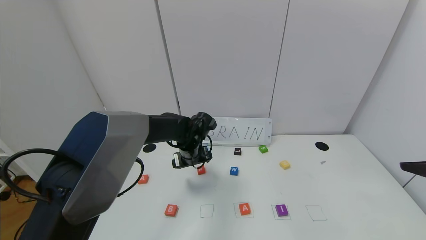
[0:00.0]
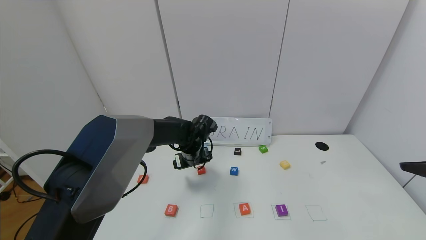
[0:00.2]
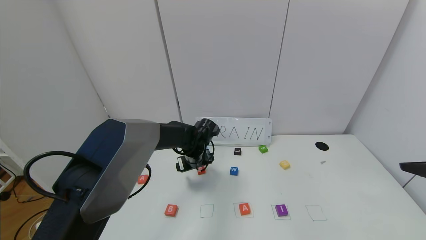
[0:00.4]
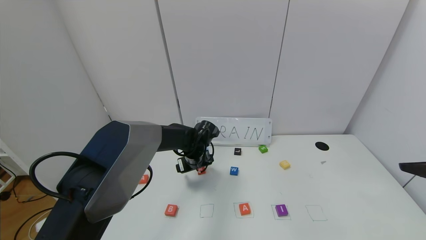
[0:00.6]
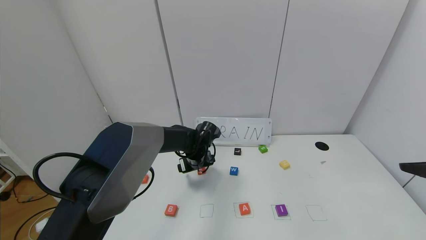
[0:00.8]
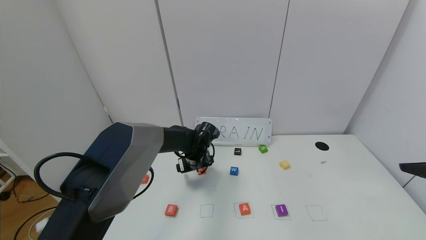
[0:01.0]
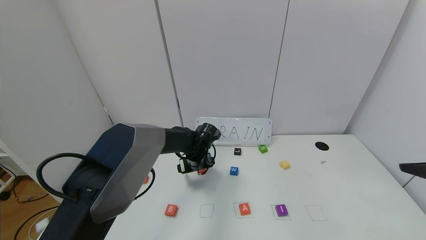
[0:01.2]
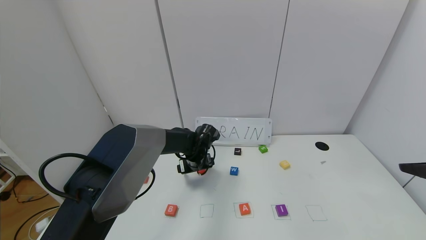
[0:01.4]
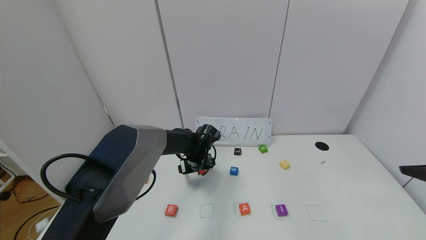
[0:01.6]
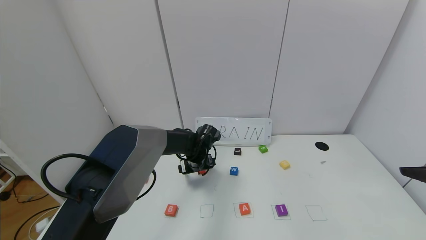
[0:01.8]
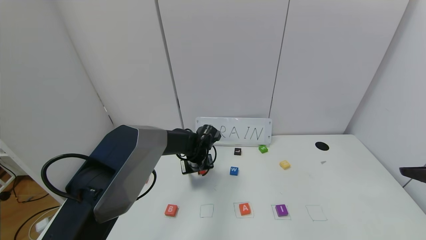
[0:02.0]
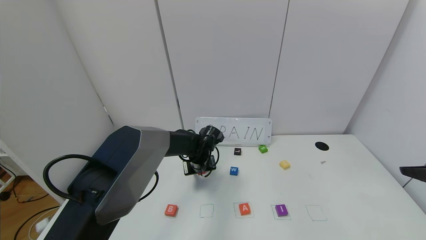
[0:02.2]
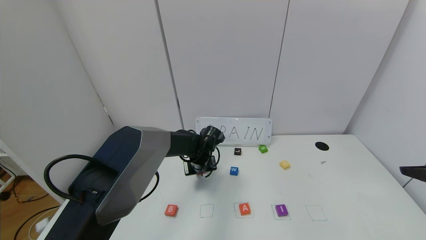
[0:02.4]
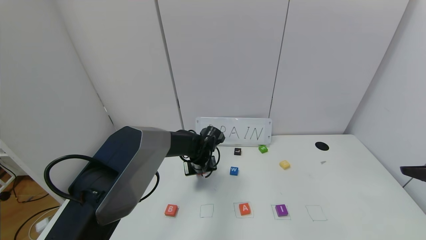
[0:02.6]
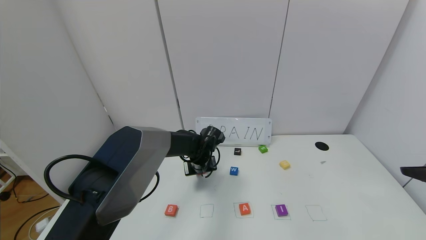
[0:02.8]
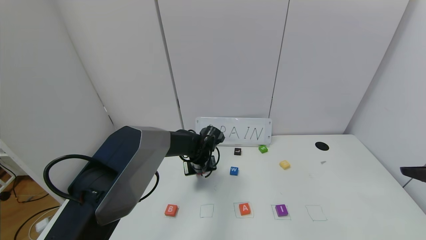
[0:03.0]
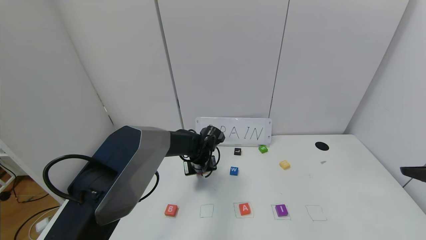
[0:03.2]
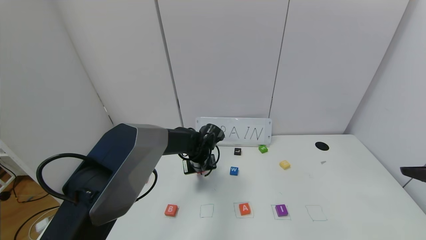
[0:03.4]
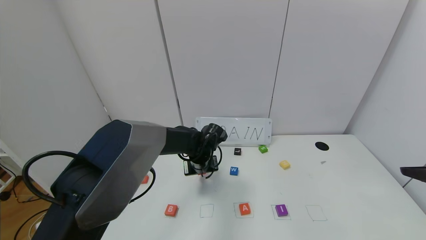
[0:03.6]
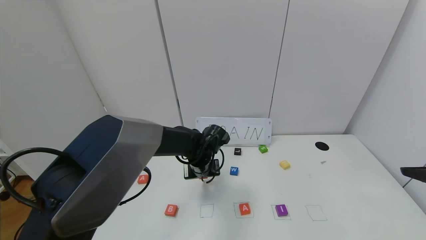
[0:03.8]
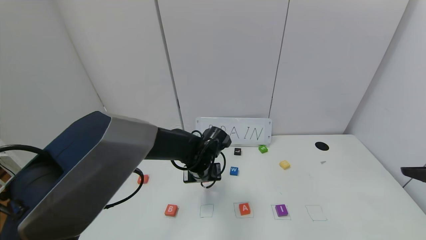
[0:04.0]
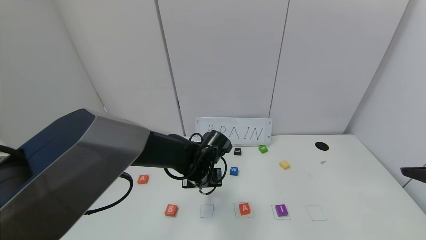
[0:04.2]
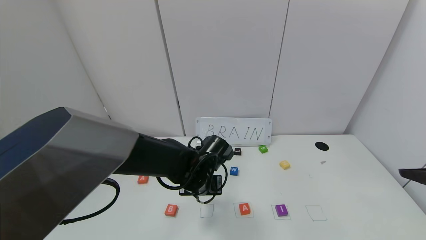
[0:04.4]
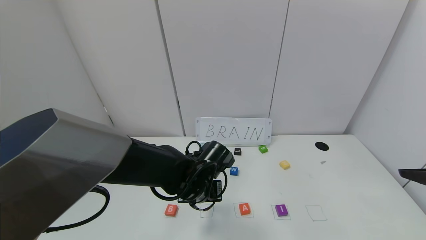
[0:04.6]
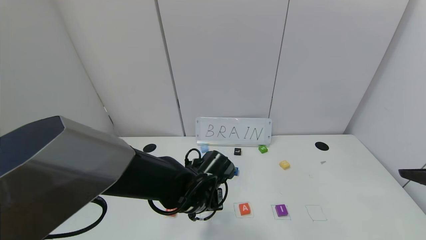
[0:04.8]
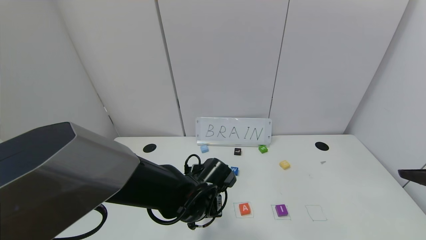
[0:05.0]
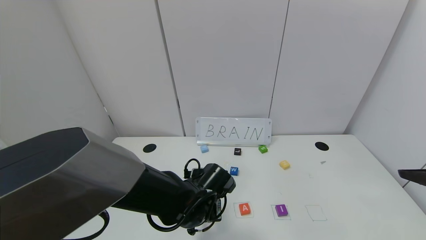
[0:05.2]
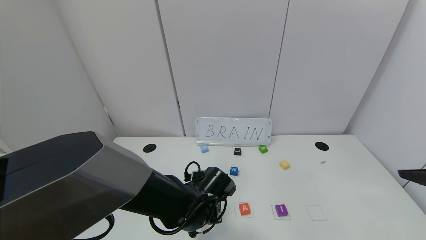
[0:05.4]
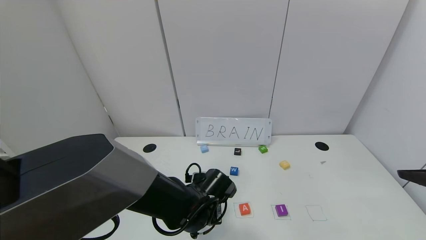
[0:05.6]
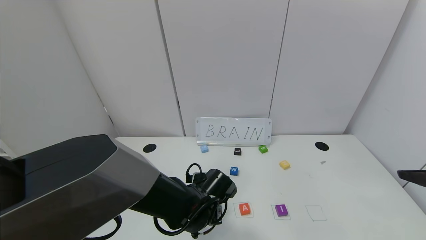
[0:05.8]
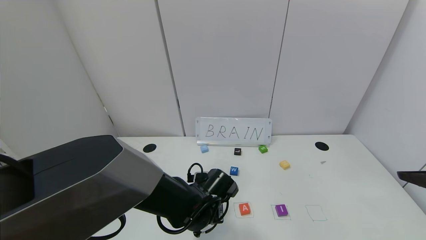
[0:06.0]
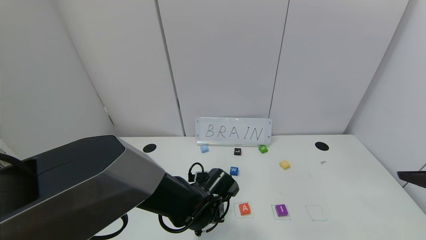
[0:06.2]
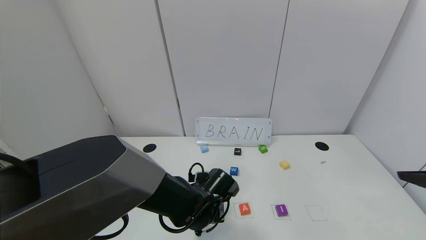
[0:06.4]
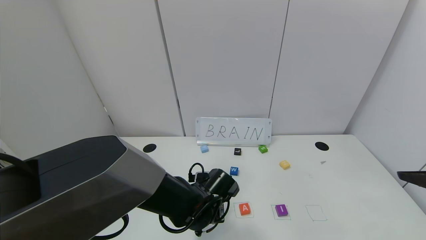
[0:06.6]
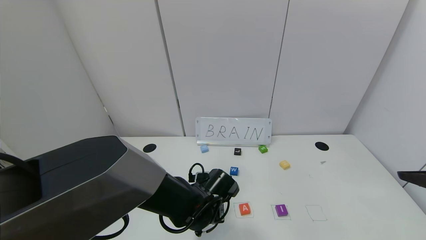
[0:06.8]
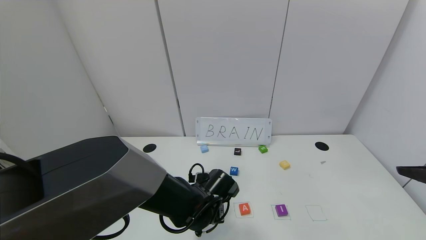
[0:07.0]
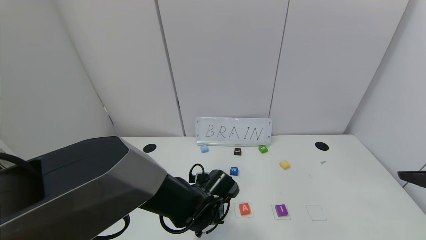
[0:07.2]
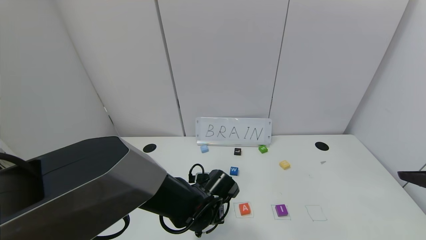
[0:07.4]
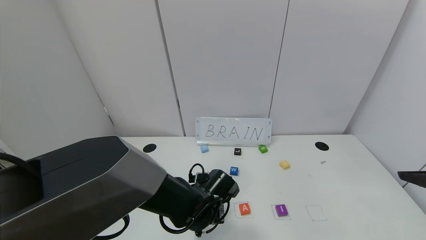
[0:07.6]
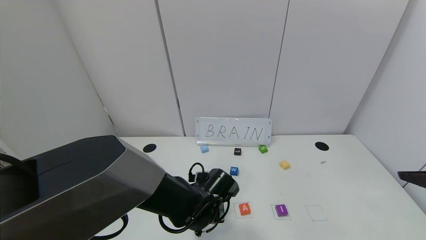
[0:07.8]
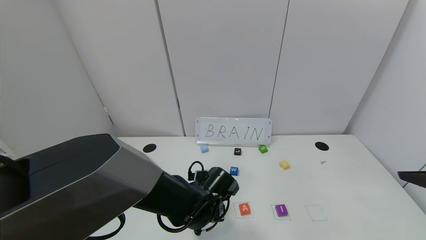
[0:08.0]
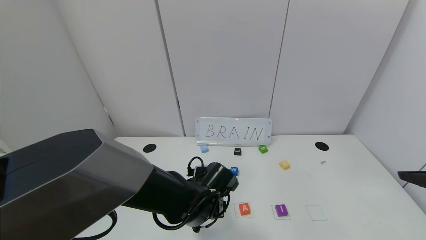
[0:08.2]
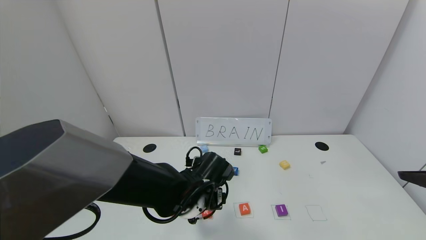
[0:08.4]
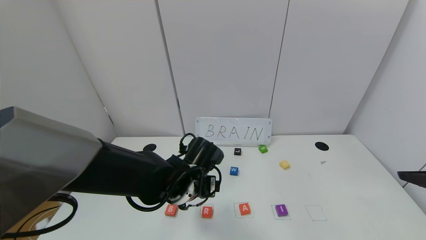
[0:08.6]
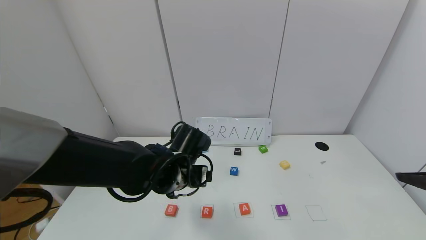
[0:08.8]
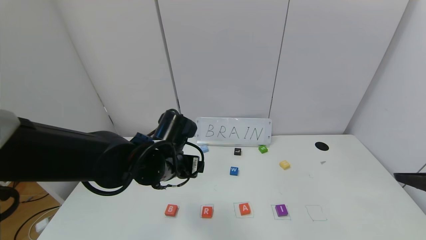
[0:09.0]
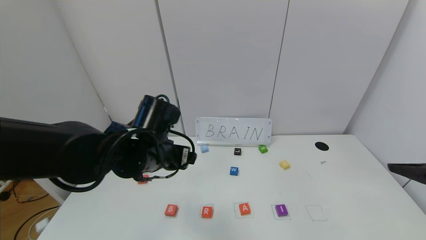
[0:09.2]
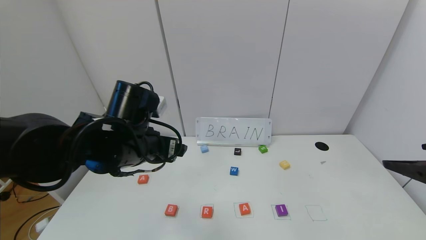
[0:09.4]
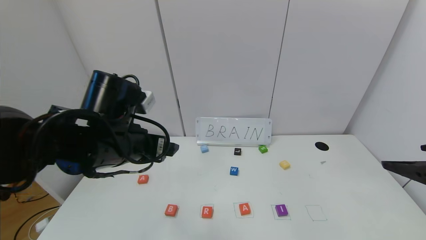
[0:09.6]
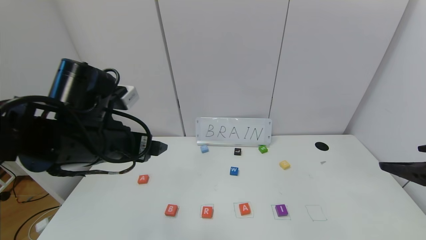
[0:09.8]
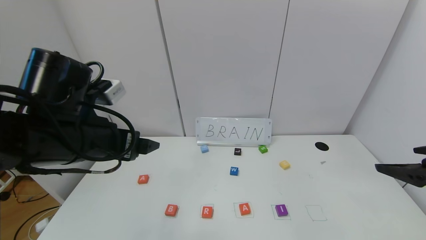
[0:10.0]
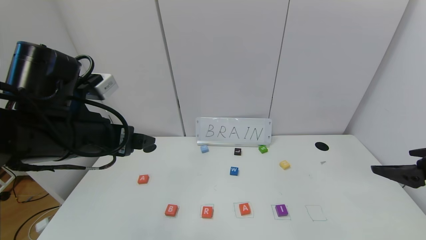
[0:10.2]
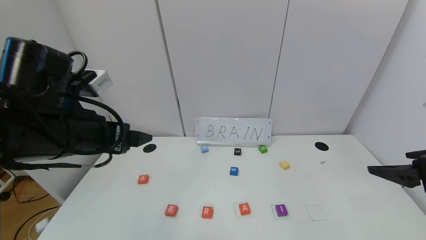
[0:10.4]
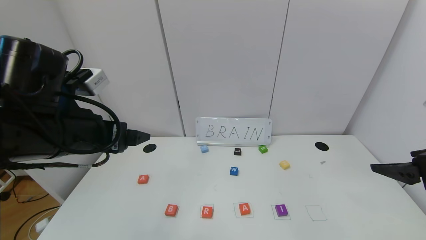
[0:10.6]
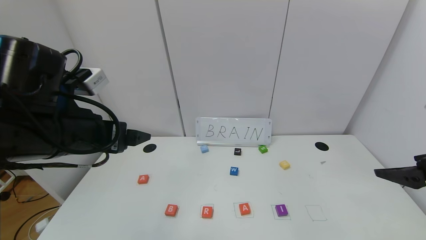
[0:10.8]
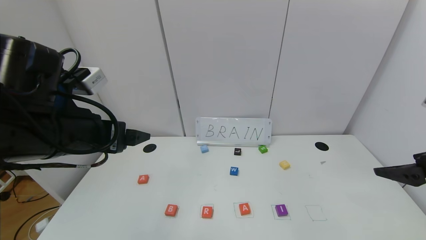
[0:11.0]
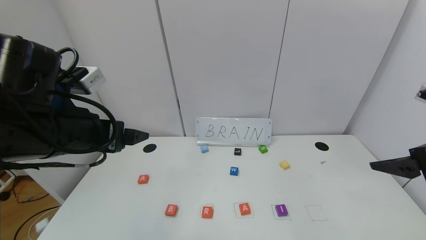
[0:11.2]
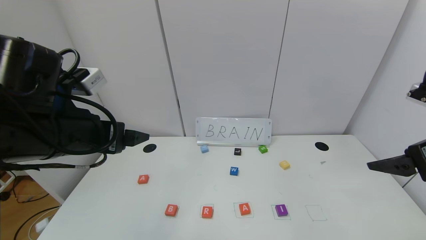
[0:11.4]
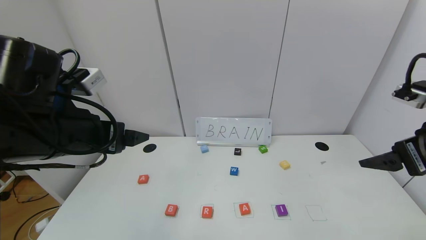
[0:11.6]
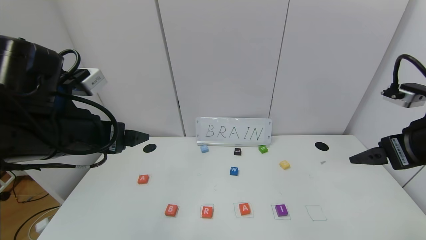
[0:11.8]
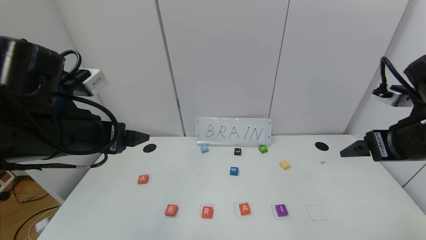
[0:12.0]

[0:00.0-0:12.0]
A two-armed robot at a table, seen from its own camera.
Task of the whole recording: use the gripper to find blocks with the letters b, a, a, and i on the table and arrange them into BAAI, then find r and N and turn the arranged baai into brian.
Step, 0:00.0 to 0:08.0: Place the block R in the second location.
0:00.0 to 0:01.6: The left gripper is displaced downward by approximately 5 cm.
0:01.6 to 0:03.0: The left gripper closes its fingers.
0:03.0 to 0:04.4: The left gripper travels backward by roughly 10 cm.
0:04.4 to 0:06.0: The left gripper shifts some 5 cm downward.
0:06.0 to 0:07.6: The left gripper opens.
0:07.6 to 0:09.0: The left gripper is displaced upward and to the left by some 15 cm, and opens its fingers.
0:09.0 to 0:10.4: The left gripper shifts approximately 15 cm upward, to the left and backward.
0:10.4 to 0:12.0: The right gripper travels forward by approximately 5 cm.

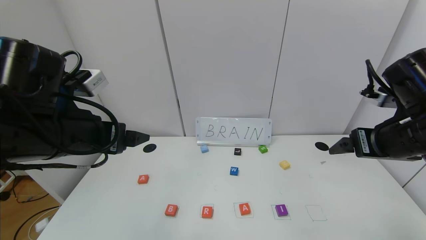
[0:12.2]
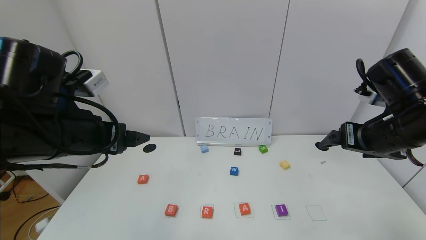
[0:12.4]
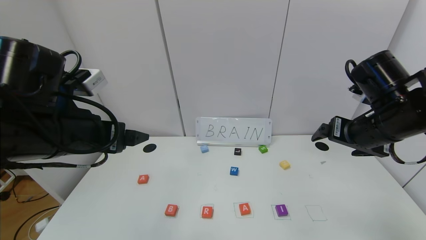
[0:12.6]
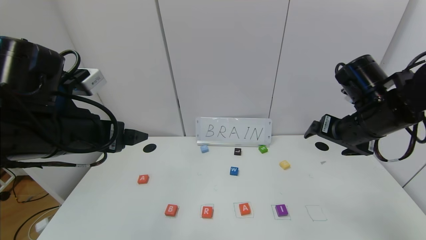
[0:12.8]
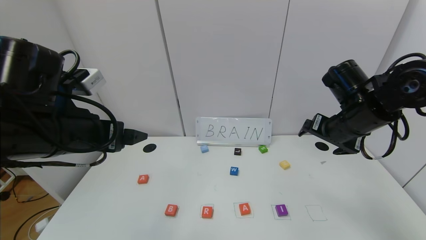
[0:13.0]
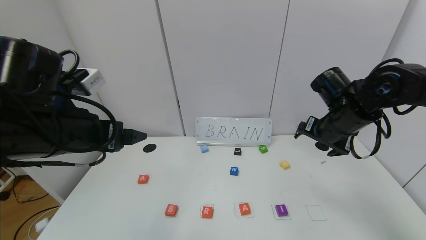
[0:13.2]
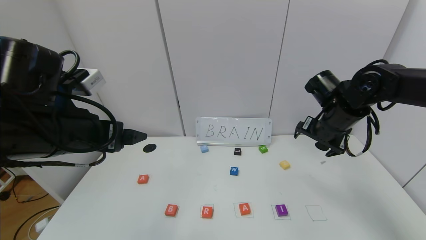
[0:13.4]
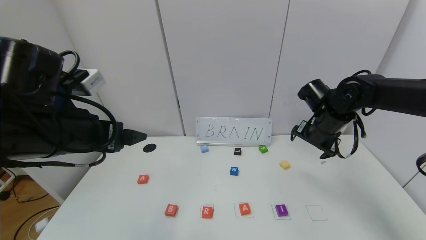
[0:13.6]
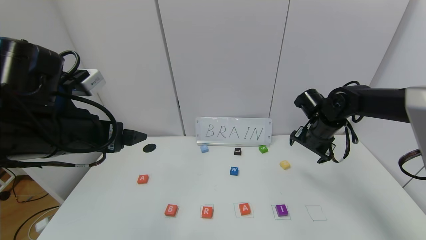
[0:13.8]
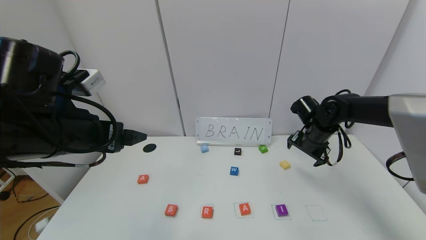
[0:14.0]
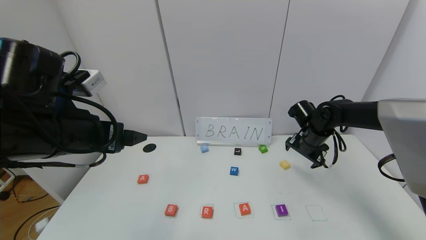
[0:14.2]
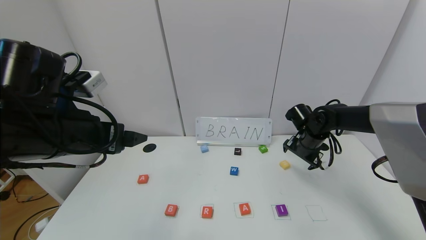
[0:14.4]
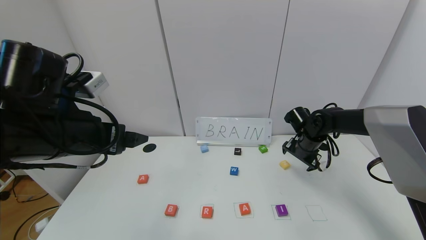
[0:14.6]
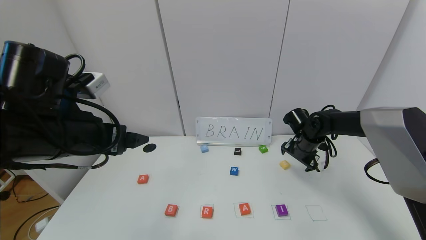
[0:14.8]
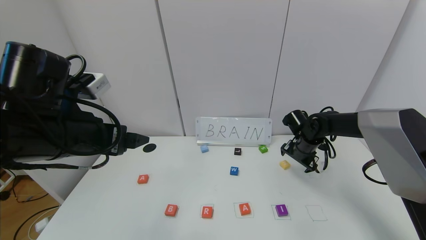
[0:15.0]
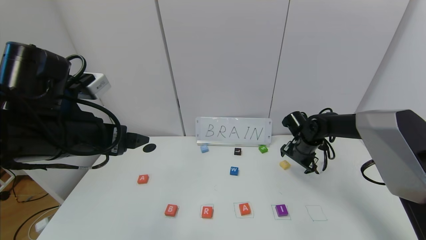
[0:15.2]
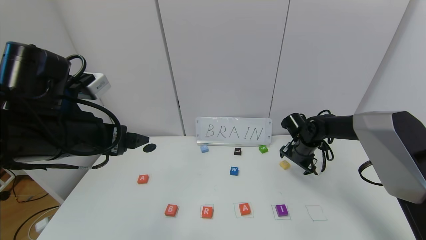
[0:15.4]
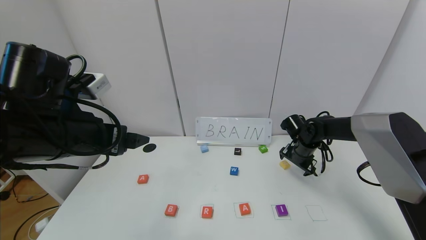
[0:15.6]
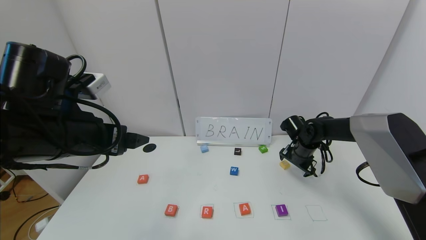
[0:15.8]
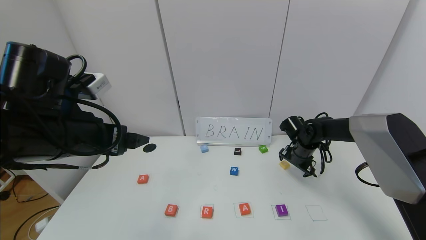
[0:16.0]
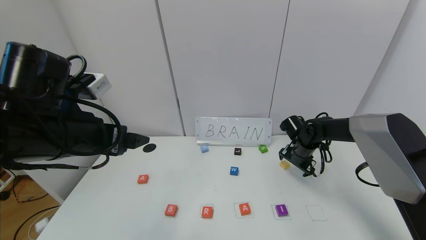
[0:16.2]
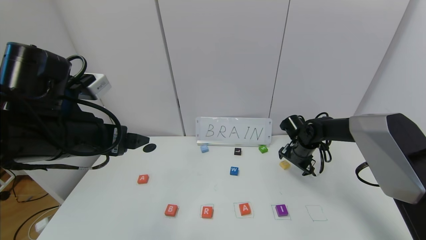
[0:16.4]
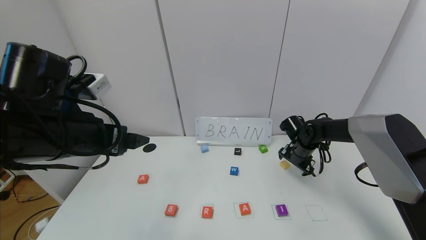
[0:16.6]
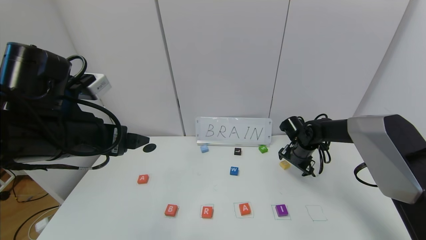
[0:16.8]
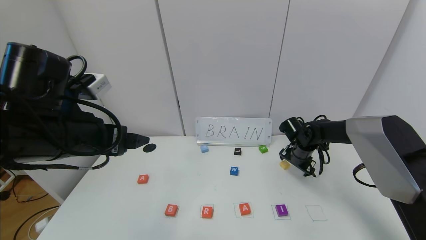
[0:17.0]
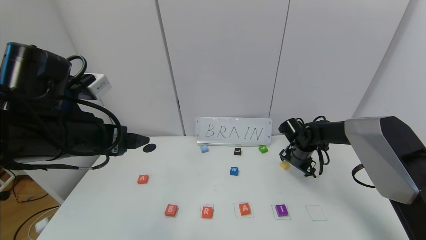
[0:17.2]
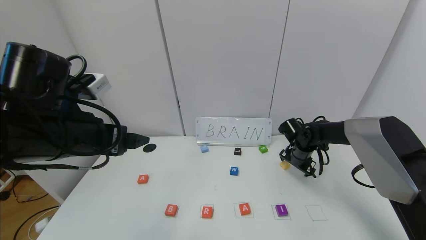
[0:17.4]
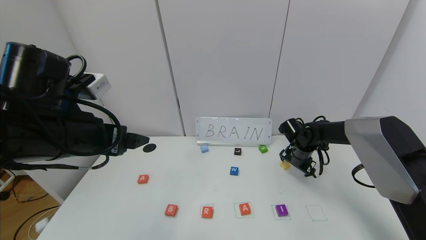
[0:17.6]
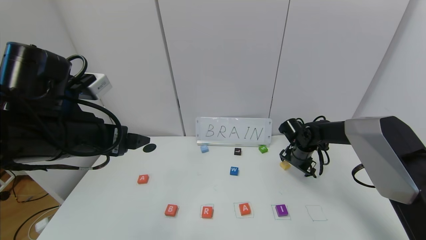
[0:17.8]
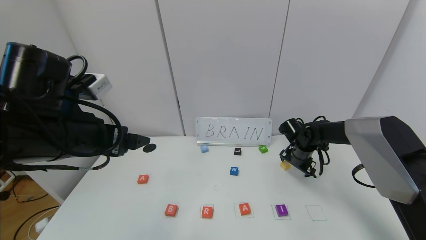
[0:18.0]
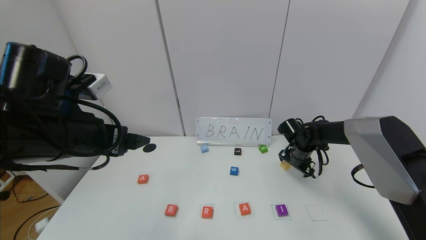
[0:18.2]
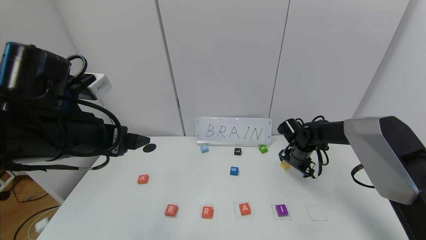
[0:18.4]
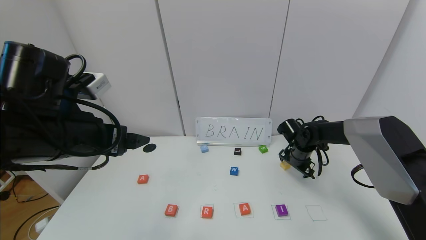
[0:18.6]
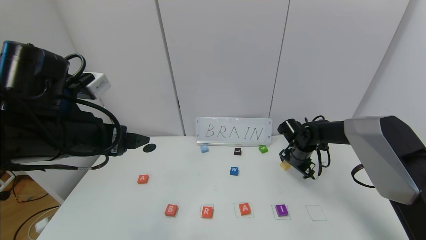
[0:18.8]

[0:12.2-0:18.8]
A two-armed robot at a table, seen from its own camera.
Task of the whole recording: use the gripper to find blocks with the letters b, a, a, and i on the table and arrange them into BAAI, then find r and N and turn the arranged baai into brian.
0:12.2 to 0:13.8: The right gripper moves forward and downward, roughly 20 cm.
0:13.8 to 0:15.4: The right gripper travels downward by roughly 10 cm.
0:15.4 to 0:17.2: The grippers stay close to where they were, moving slightly.
0:17.2 to 0:18.8: The two grippers keep their place.
